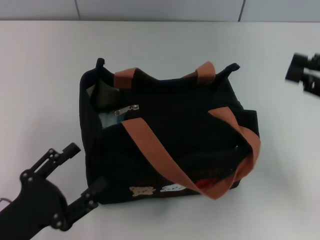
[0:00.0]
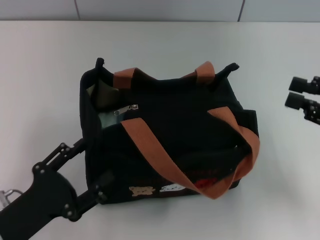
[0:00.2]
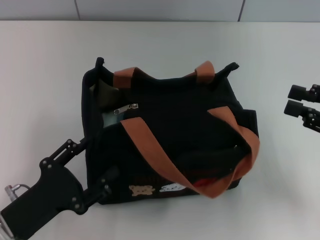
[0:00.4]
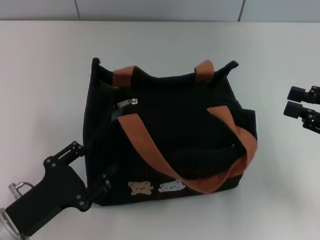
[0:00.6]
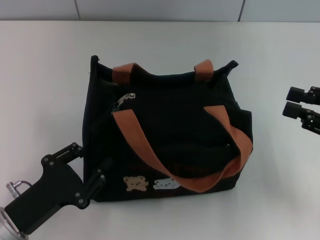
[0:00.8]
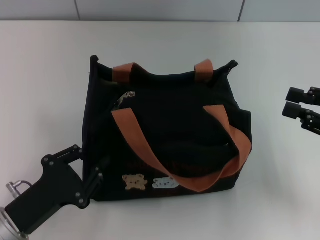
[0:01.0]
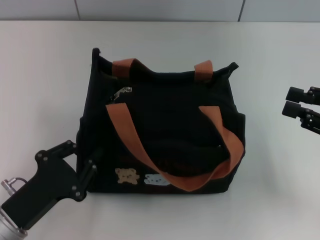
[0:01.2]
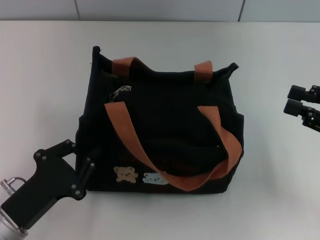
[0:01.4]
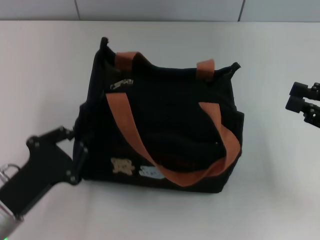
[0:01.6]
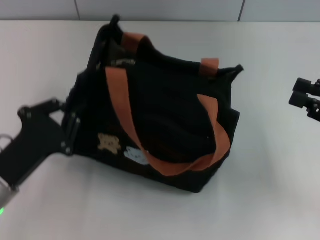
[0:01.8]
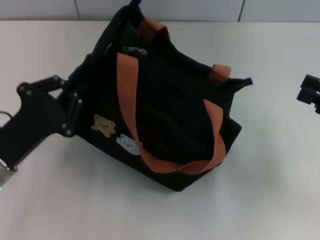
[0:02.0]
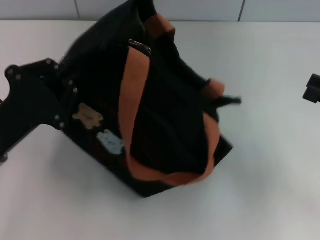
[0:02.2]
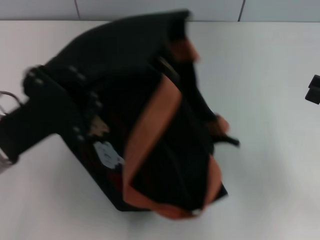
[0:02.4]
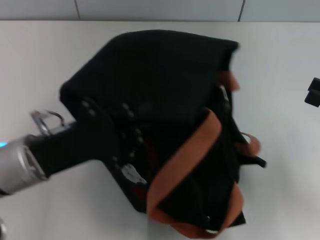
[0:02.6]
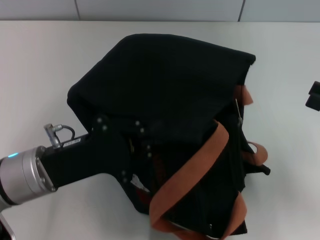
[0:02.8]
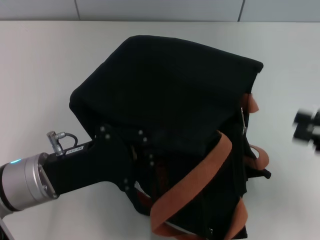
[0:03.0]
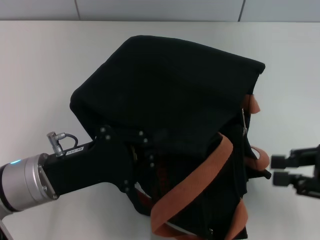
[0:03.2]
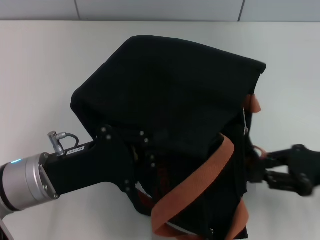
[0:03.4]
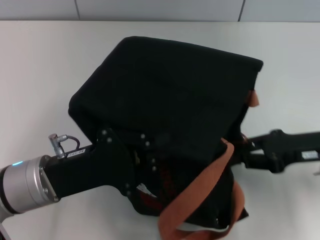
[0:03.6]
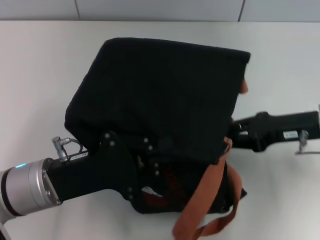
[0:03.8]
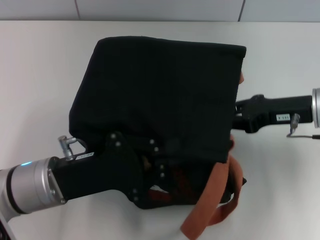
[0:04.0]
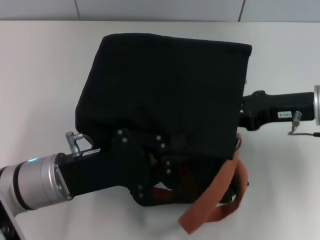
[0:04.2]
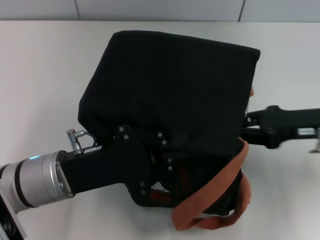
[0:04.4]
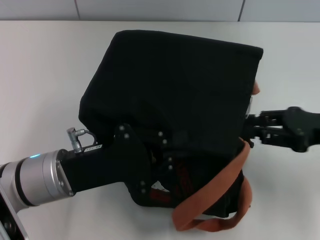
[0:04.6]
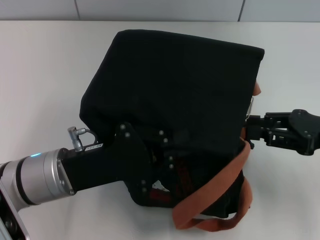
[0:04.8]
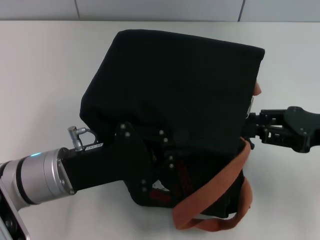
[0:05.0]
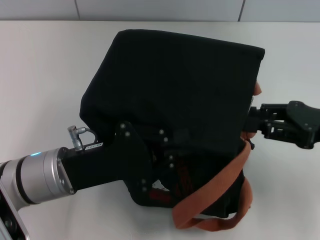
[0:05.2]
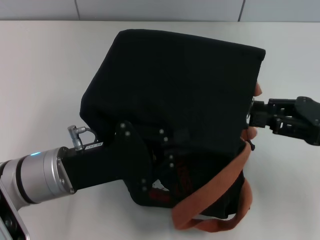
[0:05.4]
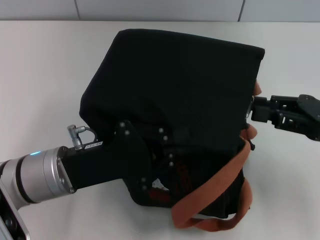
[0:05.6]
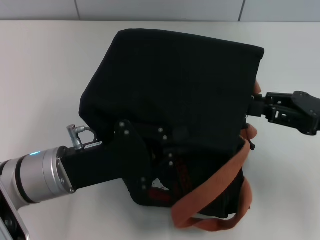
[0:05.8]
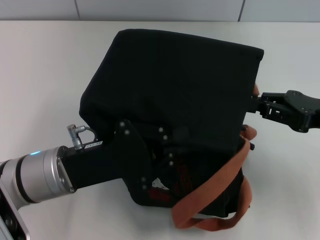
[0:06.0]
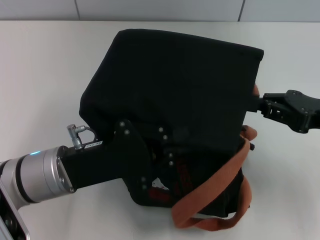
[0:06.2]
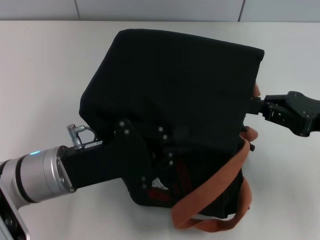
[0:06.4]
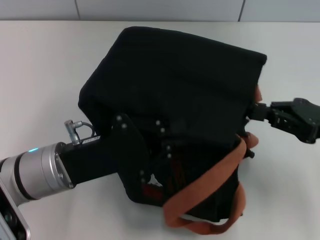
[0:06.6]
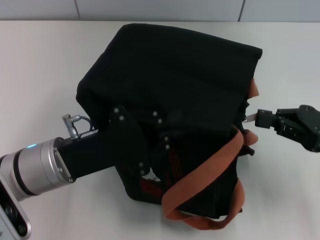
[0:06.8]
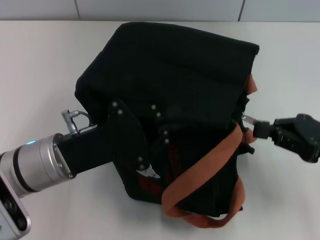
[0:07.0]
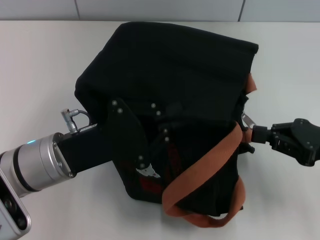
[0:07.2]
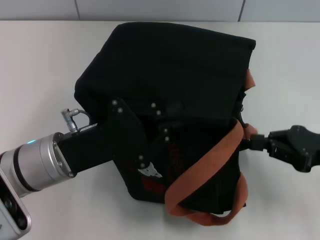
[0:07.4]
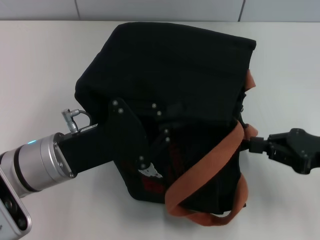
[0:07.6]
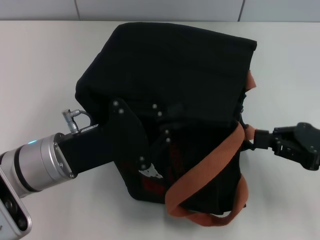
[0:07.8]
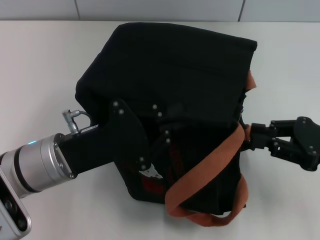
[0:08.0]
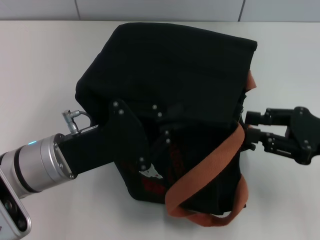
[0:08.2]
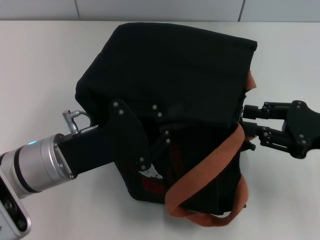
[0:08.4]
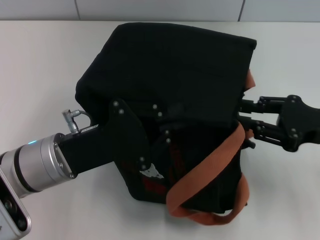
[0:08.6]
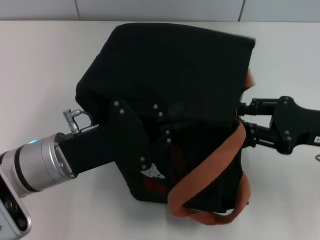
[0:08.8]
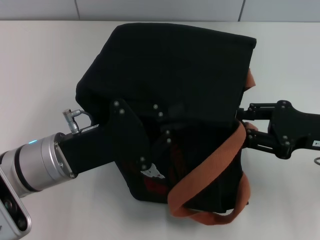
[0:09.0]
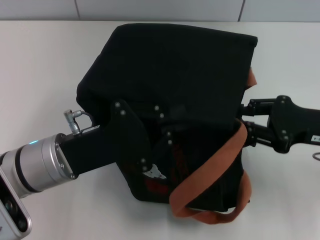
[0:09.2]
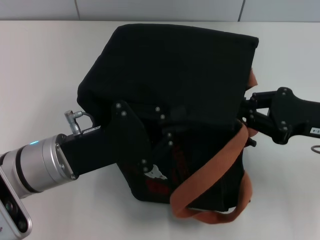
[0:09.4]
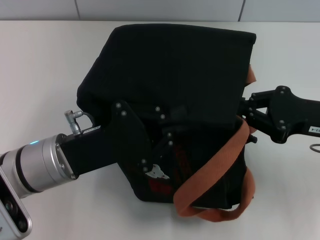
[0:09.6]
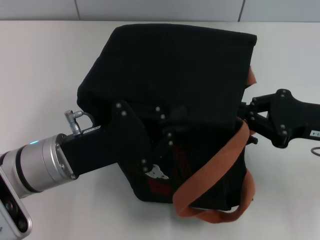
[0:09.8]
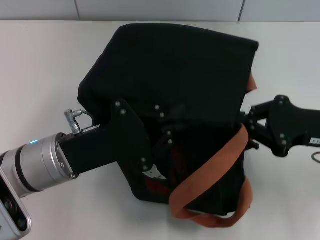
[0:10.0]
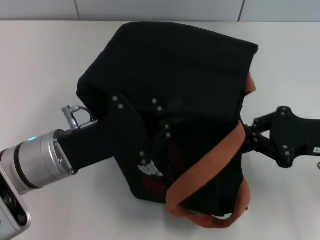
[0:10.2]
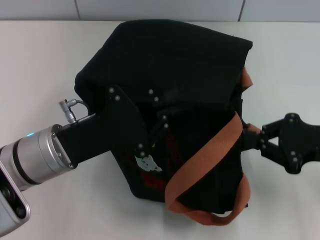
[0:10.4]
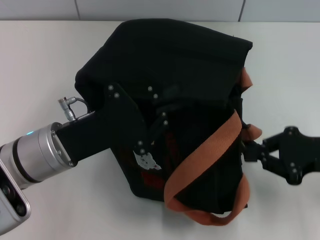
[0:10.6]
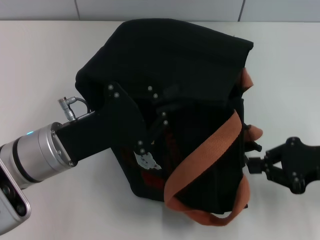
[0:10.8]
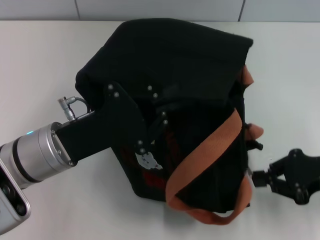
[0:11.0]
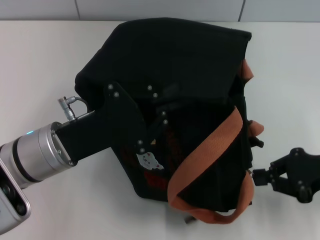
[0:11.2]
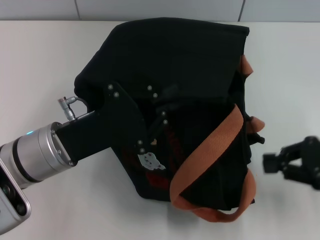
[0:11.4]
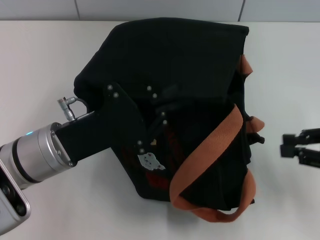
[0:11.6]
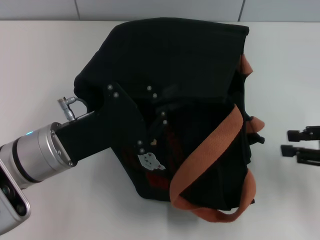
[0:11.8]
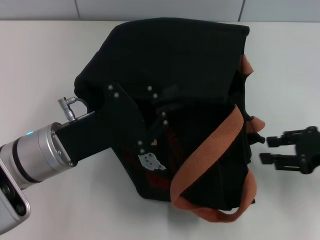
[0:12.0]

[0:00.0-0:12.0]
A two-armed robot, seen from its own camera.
Step, 0:00.0 to 0:11.2: Pull open the zipper with your right hand.
0:00.0 to 0:01.6: The left gripper closes.
0:01.6 to 0:03.0: The left gripper goes some 10 cm forward and upward.
0:03.0 to 0:04.4: The right gripper moves forward and to the left, approximately 10 cm.
0:07.6 to 0:09.0: The right gripper opens its fingers.
0:09.0 to 0:10.4: The right gripper closes.
0:10.4 to 0:12.0: The right gripper opens.

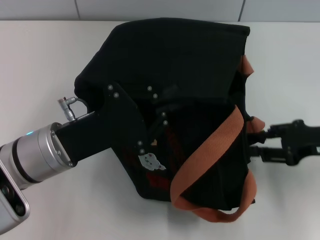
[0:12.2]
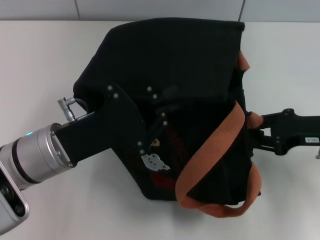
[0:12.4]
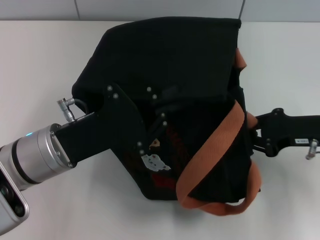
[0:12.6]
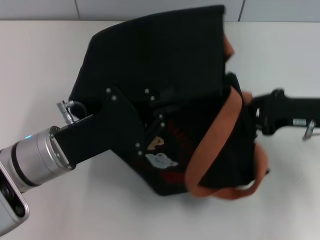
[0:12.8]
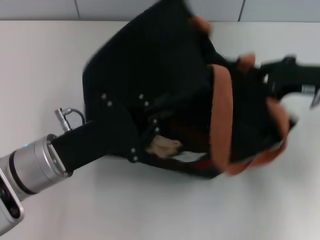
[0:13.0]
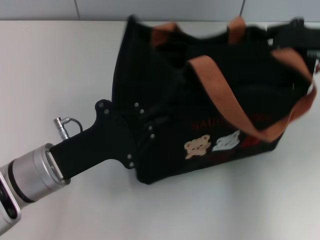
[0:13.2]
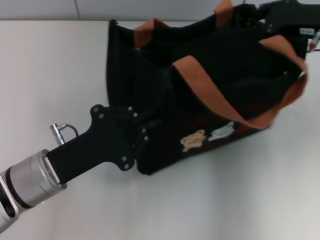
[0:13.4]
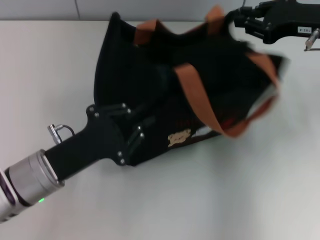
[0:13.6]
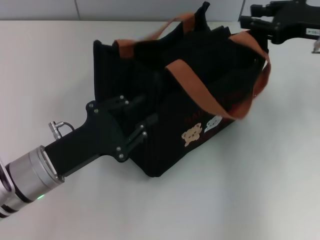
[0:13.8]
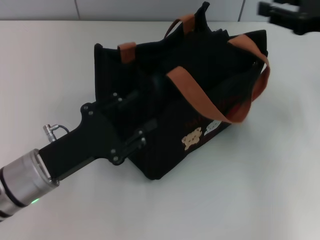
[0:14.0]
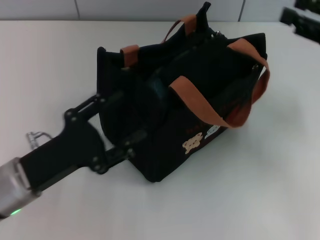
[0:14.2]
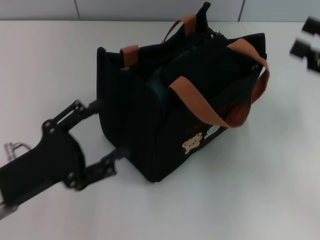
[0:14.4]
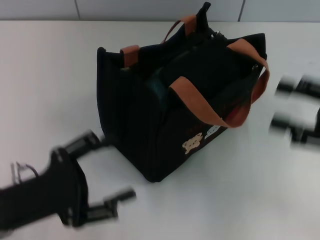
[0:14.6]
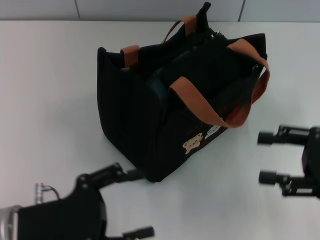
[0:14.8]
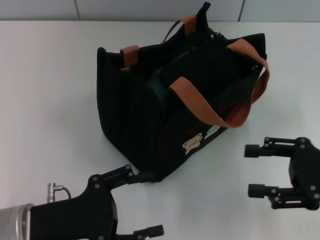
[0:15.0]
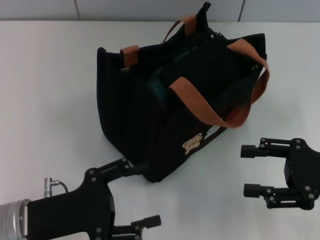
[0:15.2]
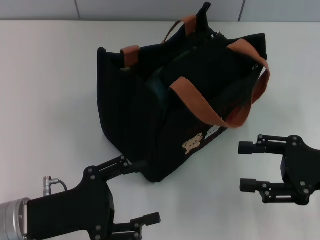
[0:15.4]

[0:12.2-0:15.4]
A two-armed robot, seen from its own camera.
Step, 0:12.2 to 0:14.0: Grab the bag with your left hand.
0:12.2 to 0:13.8: The right gripper goes approximately 10 cm upward and forward.
0:13.8 to 0:15.4: The left gripper heads backward, covering approximately 5 cm, and opens; the right gripper shifts about 15 cm backward and downward, and opens.

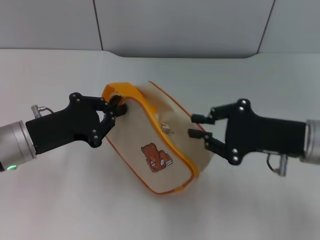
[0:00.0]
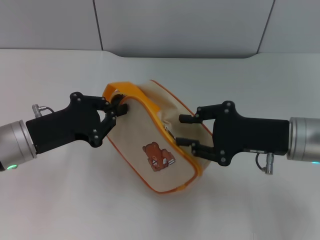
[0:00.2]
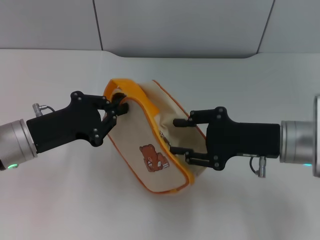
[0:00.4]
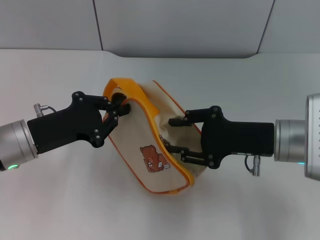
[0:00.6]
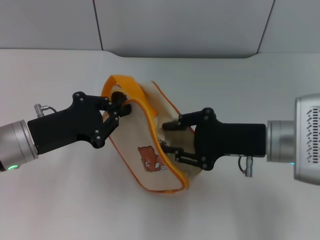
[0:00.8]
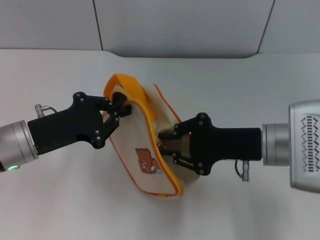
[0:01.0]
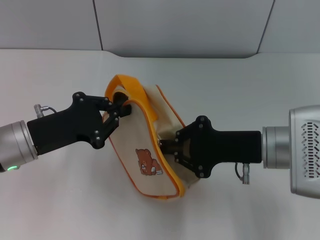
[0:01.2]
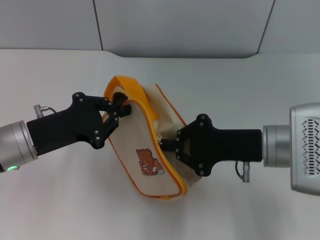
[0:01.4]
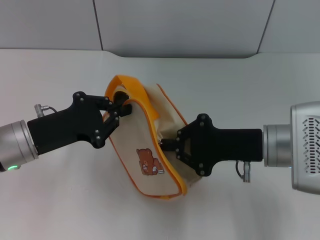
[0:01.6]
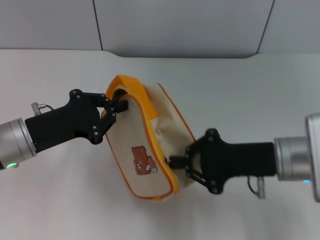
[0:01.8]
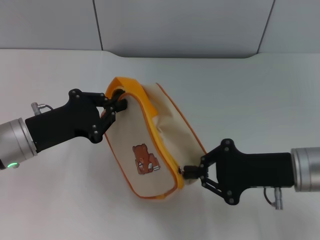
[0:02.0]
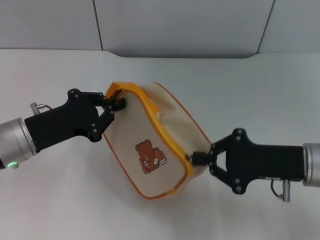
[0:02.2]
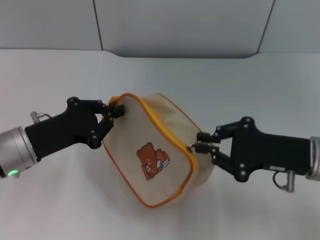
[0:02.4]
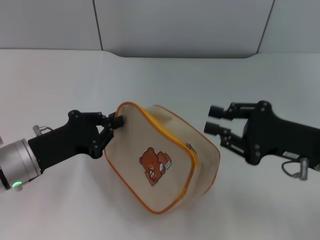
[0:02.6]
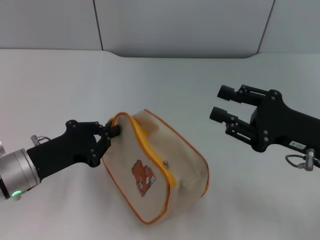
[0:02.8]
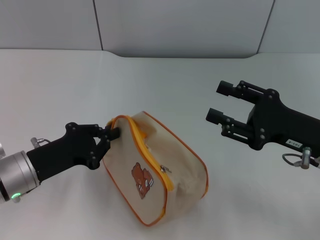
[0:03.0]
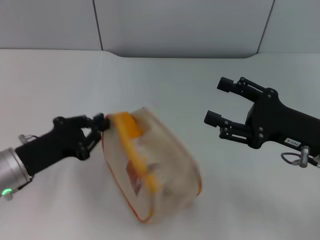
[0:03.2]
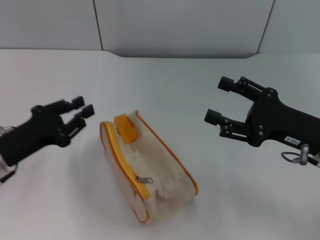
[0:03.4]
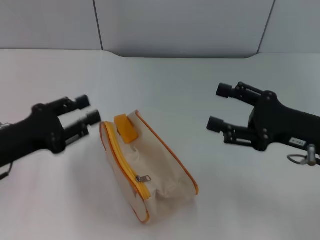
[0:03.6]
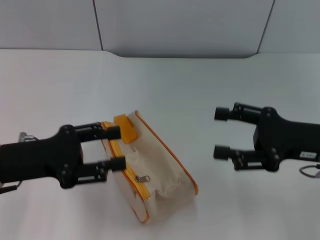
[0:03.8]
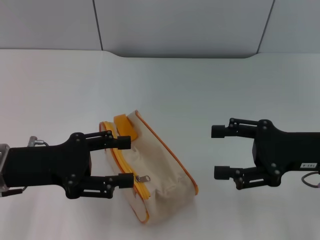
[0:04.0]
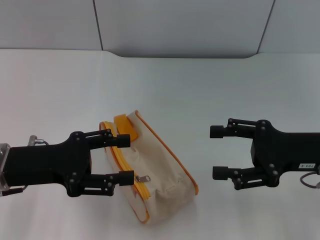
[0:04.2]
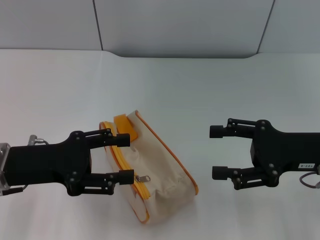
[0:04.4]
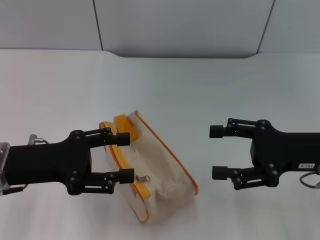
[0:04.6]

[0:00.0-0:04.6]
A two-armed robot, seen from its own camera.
Step, 0:00.0 to 0:02.4: Unzip the zipper of bag with right gripper.
Step, 0:02.8 to 0:03.6: Place the bag on the table with left gripper.
0:00.0 to 0:01.6: The right gripper opens and closes again.
0:01.6 to 0:03.0: The left gripper moves approximately 5 cm. The right gripper moves to the right, some 5 cm, and opens up.
0:03.0 to 0:04.6: The right gripper opens, while the left gripper is displaced upward by some 5 cm, and opens up.

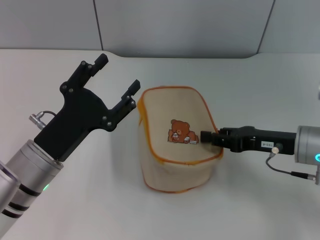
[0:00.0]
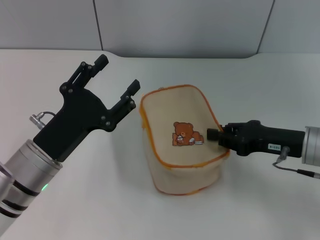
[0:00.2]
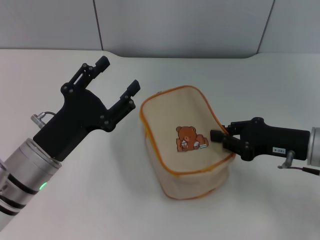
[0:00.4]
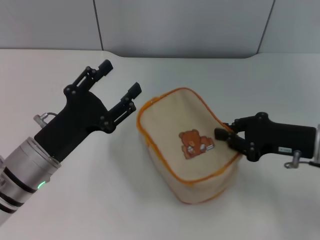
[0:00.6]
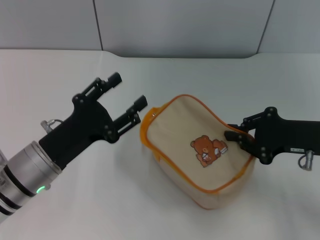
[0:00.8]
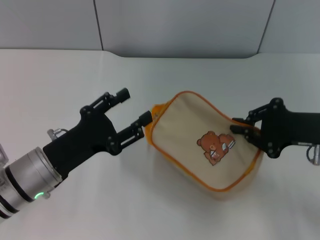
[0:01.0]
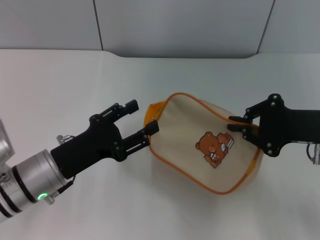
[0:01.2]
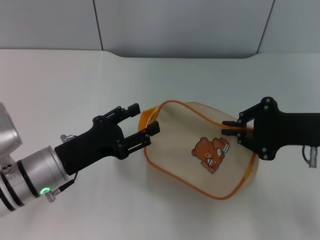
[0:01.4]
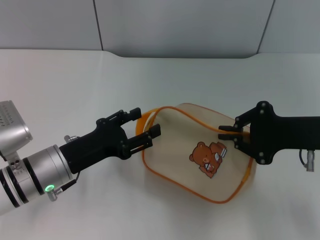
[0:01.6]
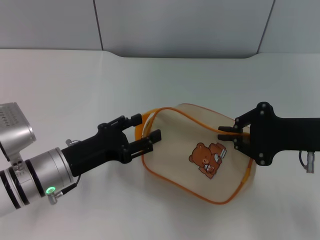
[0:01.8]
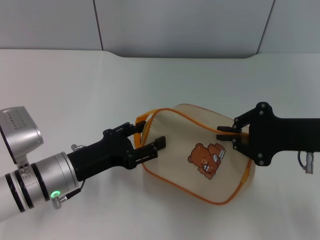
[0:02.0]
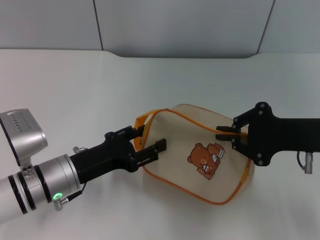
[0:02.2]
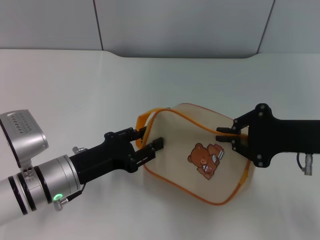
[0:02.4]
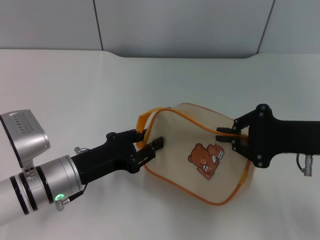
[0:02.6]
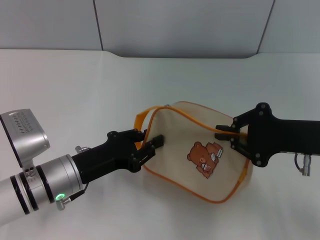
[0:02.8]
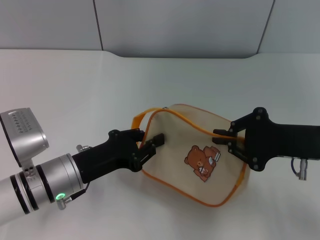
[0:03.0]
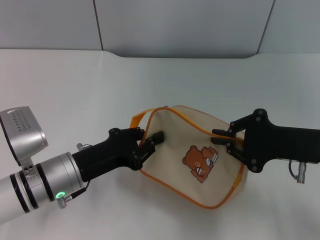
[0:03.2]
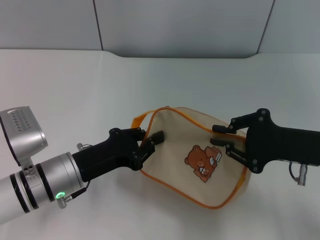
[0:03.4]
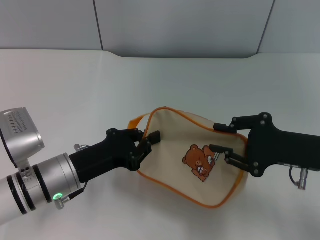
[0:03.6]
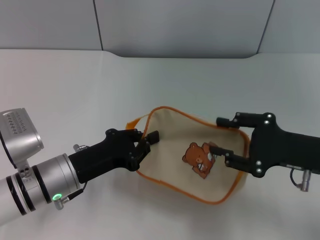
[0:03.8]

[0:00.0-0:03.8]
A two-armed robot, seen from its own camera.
0:00.0 to 0:01.2: The right gripper heads upward, covering some 5 cm, and closes its fingers.
0:02.6 to 0:03.8: The left gripper closes. Meanwhile the right gripper opens up.
